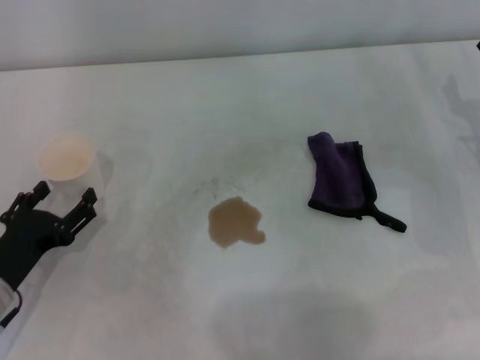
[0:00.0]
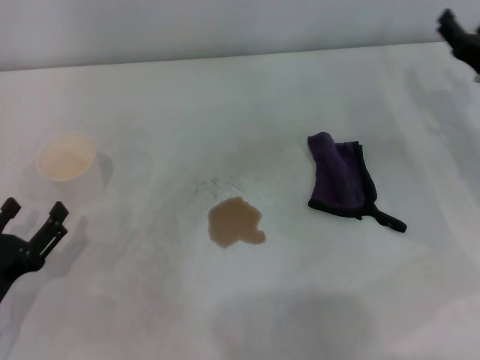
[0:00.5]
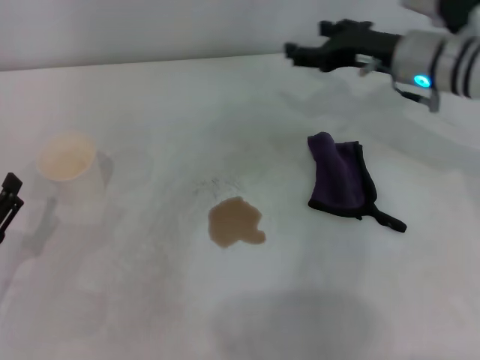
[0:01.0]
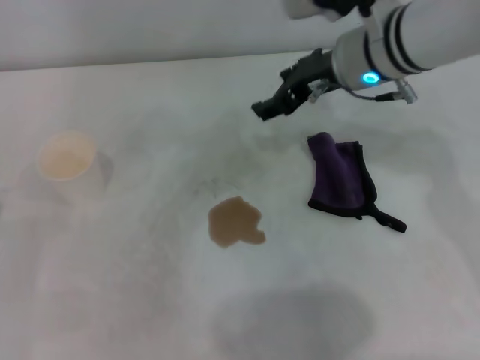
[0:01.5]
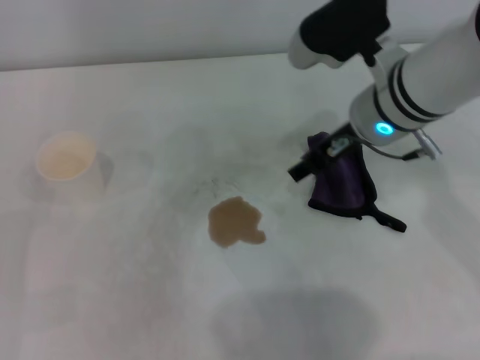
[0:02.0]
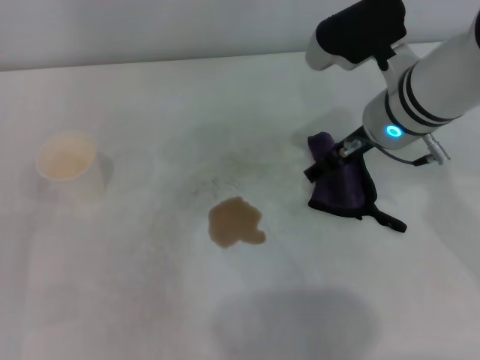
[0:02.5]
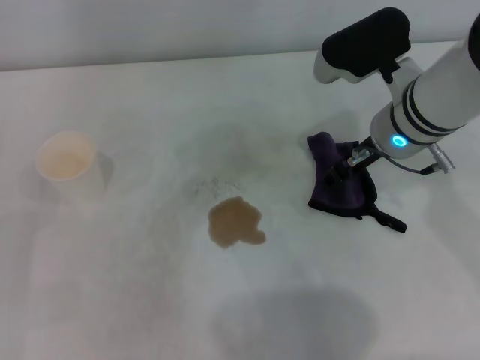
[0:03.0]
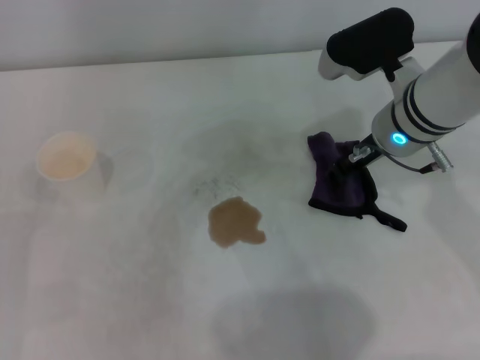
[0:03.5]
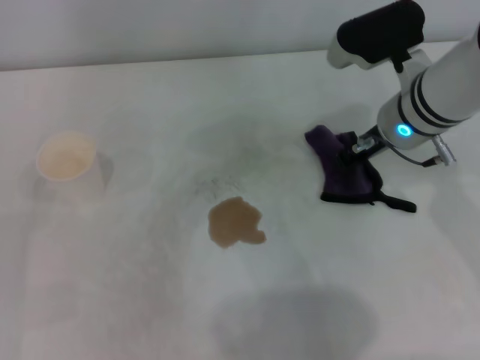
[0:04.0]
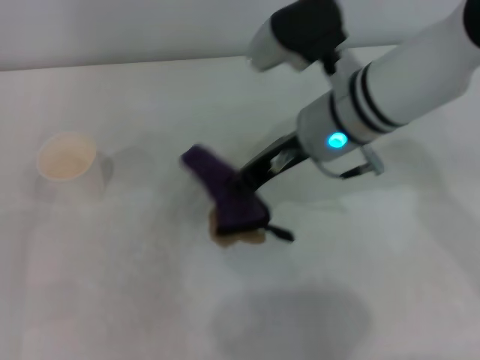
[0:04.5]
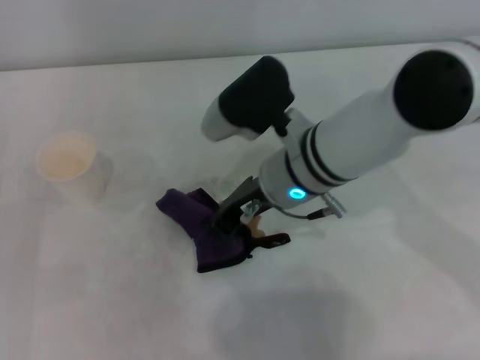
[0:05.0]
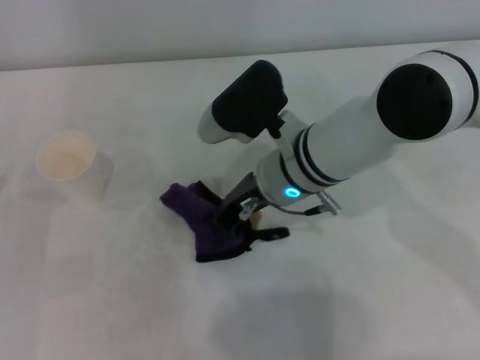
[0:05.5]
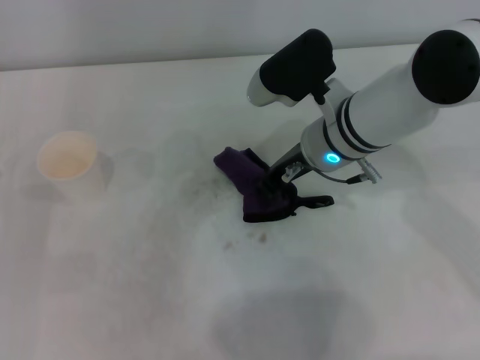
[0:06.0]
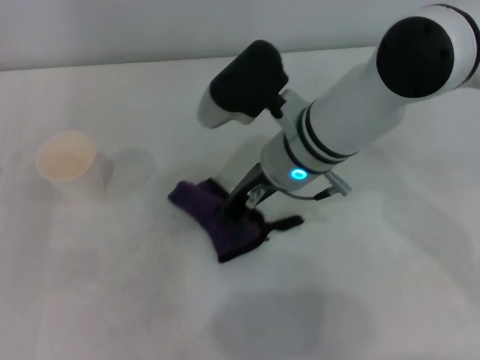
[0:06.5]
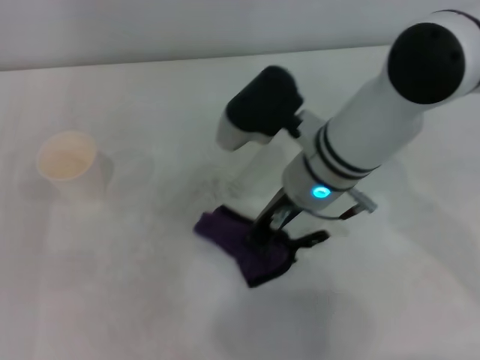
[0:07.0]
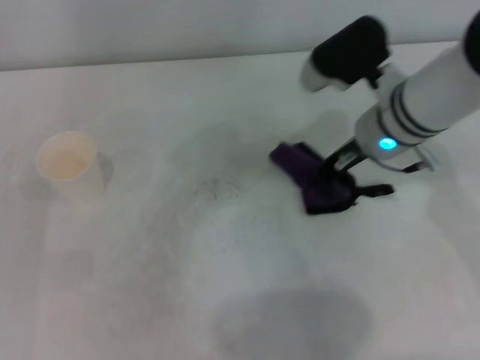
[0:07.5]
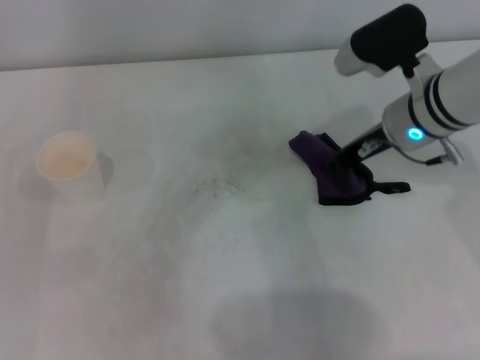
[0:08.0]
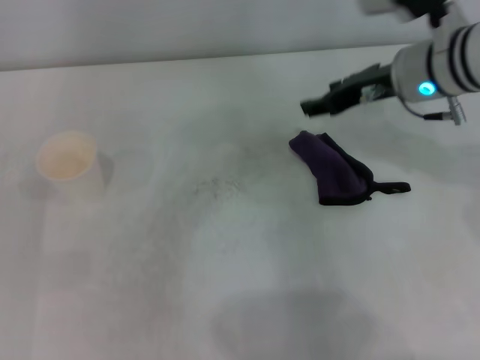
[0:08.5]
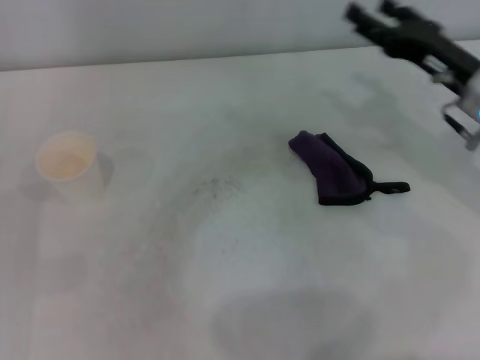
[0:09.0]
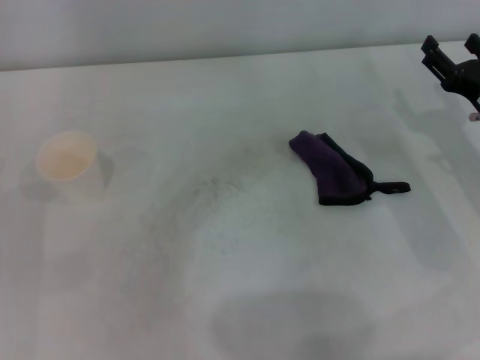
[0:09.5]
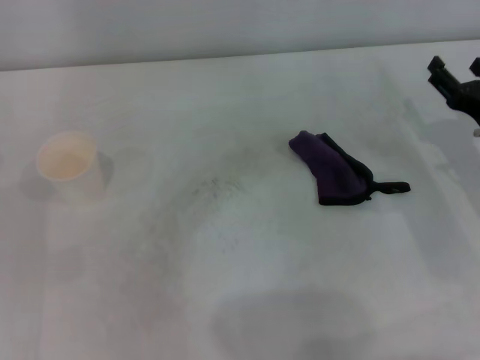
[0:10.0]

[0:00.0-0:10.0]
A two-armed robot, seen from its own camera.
Step, 0:00.0 to 0:03.5: Grasp the rag with the right gripper.
Step, 0:04.0 to 0:07.0: Wipe the stains off the table with the right gripper.
0:00.0 to 0:02.0: The left gripper moves to the left, some 10 cm, while the right gripper moves to the left and upward, some 20 cm.
0:02.0 to 0:04.0: The right gripper closes.
0:04.0 to 0:06.0: The right gripper shifts about 5 cm to the left.
0:06.0 to 0:08.0: The right gripper is displaced to the right by some 10 cm.
0:08.0 to 0:10.0: The right gripper moves to the right, downward and backward, roughly 15 cm, and opens.
